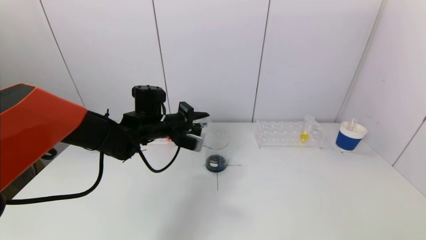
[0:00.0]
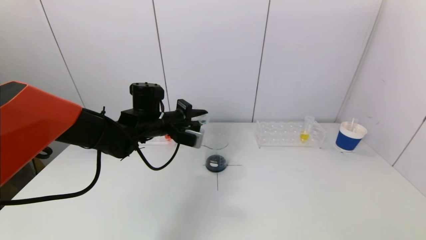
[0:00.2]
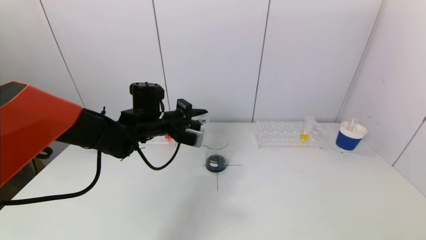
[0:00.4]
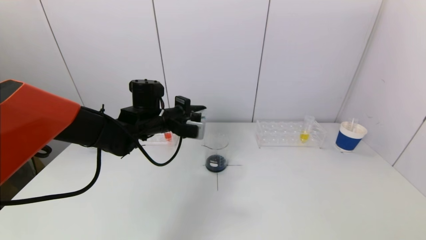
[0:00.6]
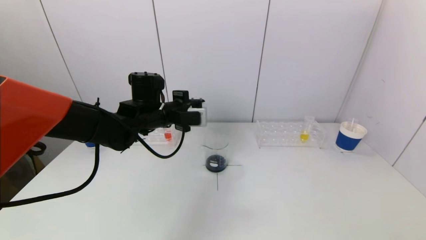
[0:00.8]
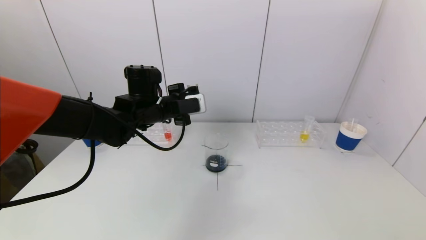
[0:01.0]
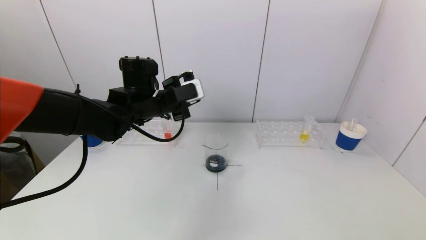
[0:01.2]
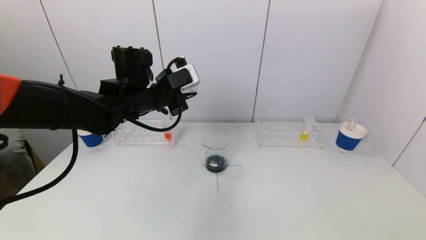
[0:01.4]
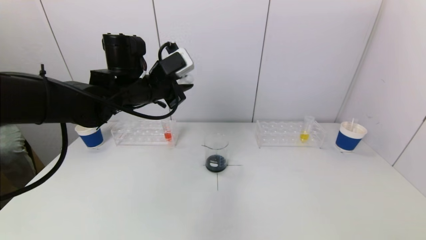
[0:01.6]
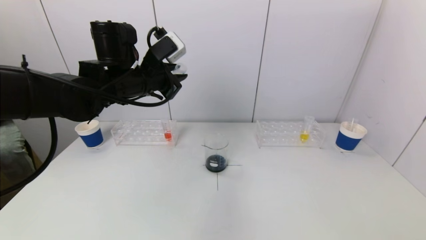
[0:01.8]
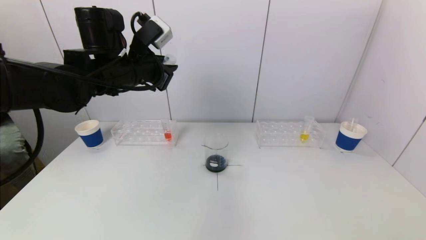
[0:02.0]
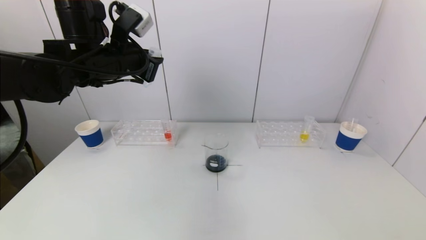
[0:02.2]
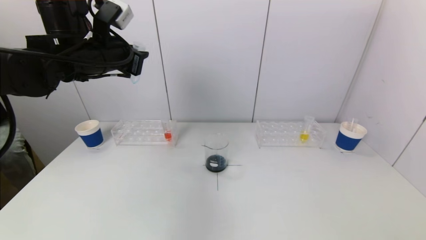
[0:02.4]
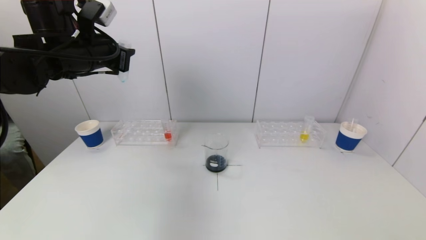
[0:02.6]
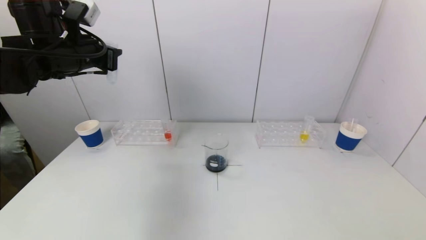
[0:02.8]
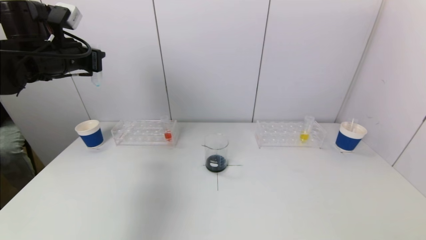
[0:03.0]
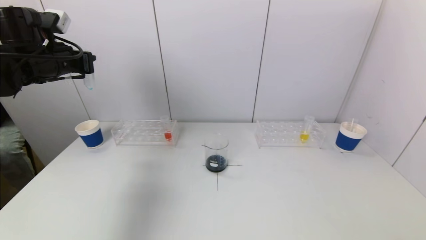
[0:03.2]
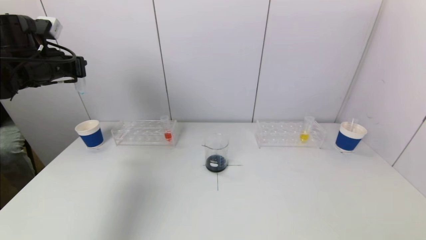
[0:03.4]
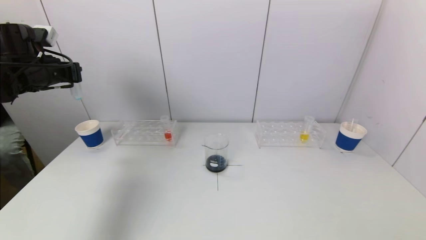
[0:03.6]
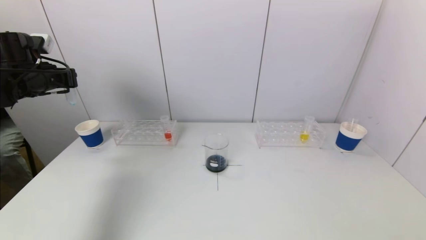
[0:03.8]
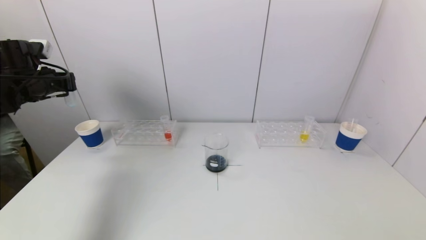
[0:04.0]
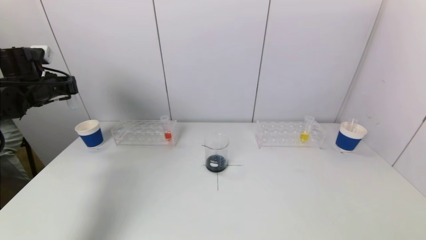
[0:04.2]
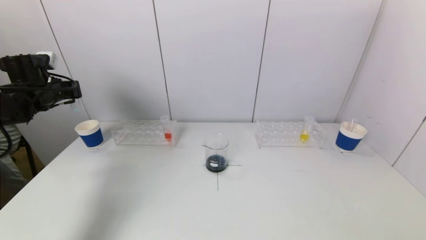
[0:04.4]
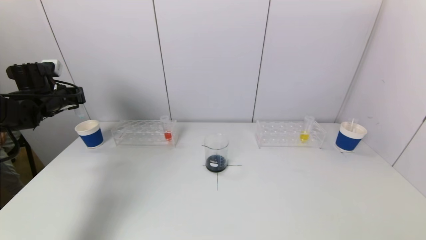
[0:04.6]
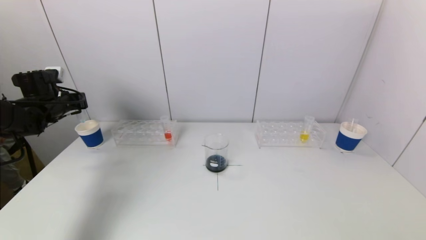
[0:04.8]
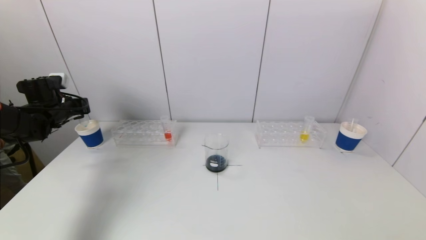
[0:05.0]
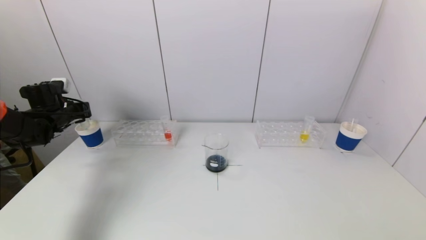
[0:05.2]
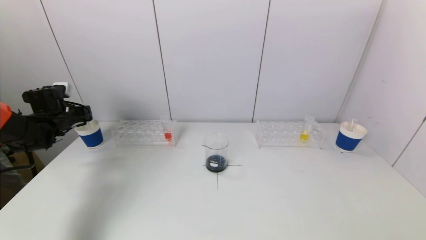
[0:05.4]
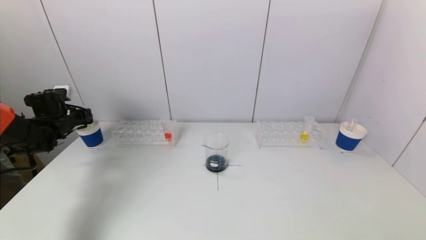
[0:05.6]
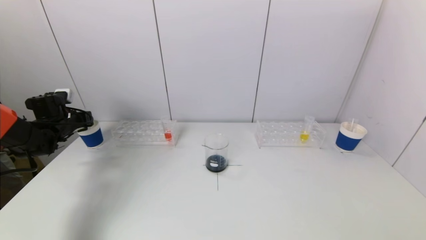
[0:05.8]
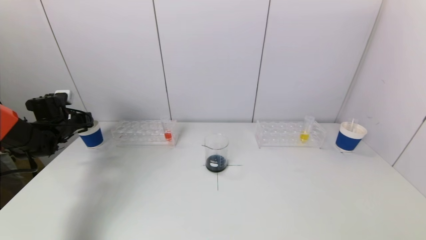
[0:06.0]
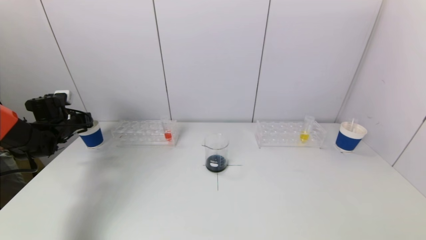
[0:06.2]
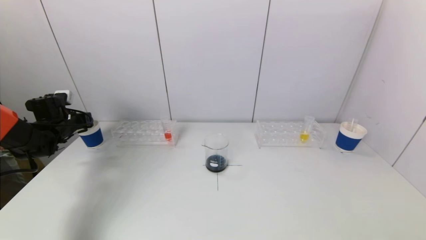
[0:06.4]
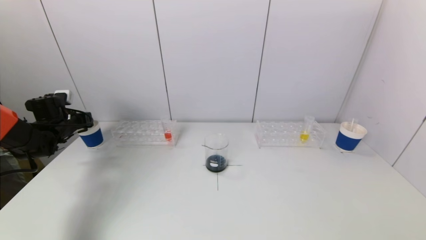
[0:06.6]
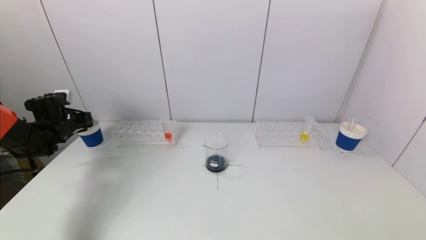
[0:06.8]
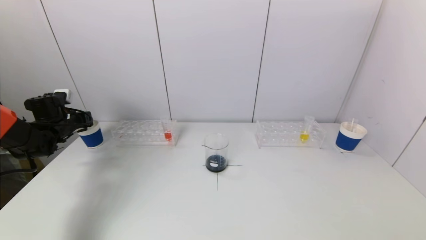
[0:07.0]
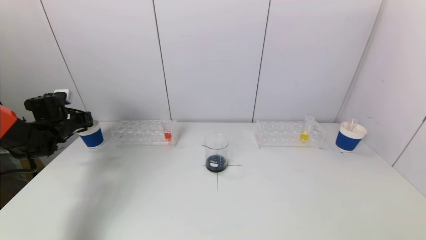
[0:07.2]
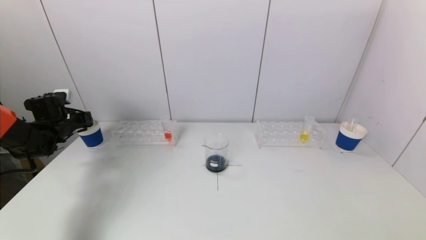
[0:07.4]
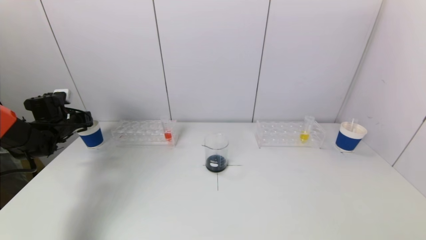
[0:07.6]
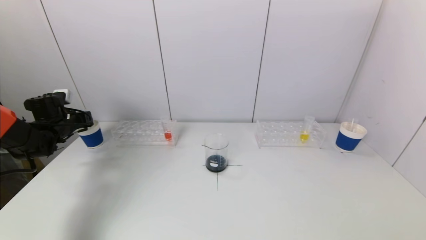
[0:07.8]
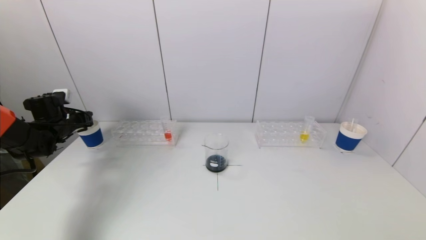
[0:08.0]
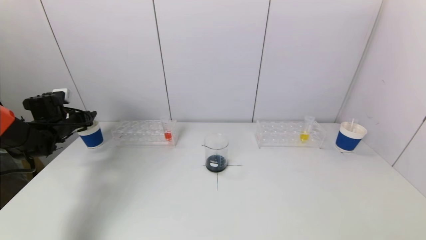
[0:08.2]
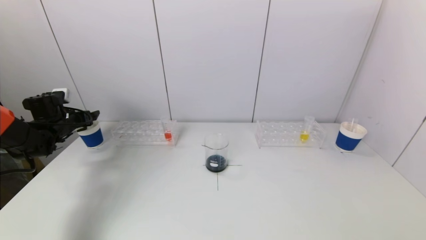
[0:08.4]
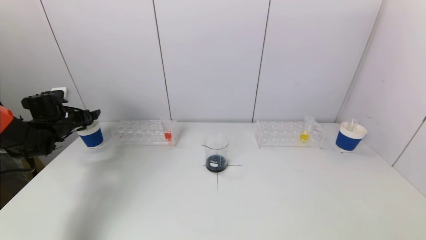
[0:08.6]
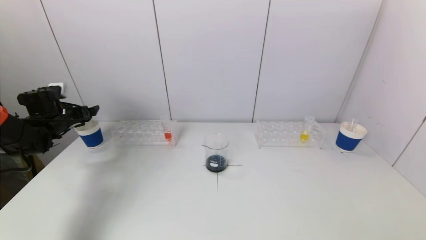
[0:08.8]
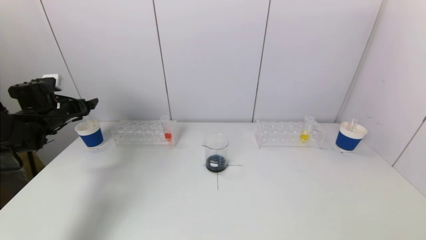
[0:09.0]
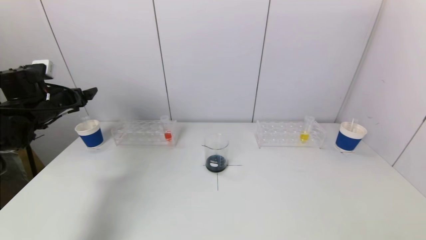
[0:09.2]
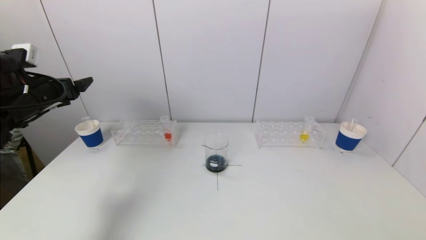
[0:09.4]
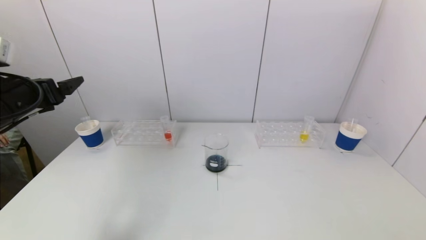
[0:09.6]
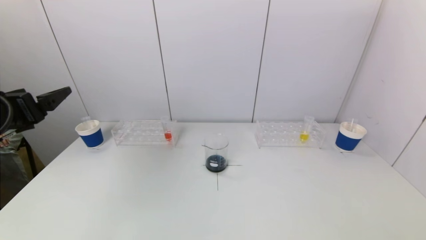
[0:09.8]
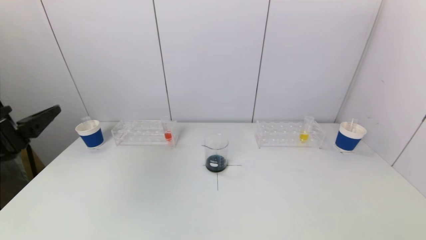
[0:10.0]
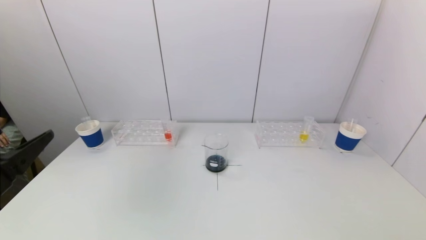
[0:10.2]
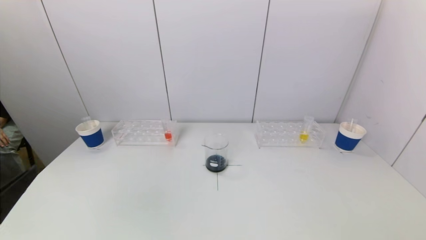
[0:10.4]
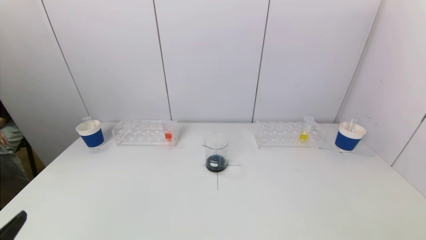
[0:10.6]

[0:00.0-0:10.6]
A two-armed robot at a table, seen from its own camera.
Task of the whole recording: pick up a test tube with pigment on left test tube rack and a test tube with pigment on right test tube rack by grippers and pour them into the beaker.
Step, 0:00.0 to 0:08.6: Place the test tube into the paper cup with the left gripper.
0:00.0 to 0:01.6: The left gripper heads upward, covering approximately 10 cm.
0:01.6 to 0:03.0: The left gripper shifts about 15 cm to the left.
0:03.0 to 0:04.6: The left gripper goes roughly 15 cm downward, to the left and forward.
0:04.6 to 0:06.0: The left gripper heads downward, covering about 10 cm.
0:06.0 to 0:07.6: Both grippers stay put.
0:07.6 to 0:09.0: The left gripper is displaced upward by about 5 cm, and opens up.
0:09.0 to 0:10.6: The left gripper is displaced backward by some 40 cm.

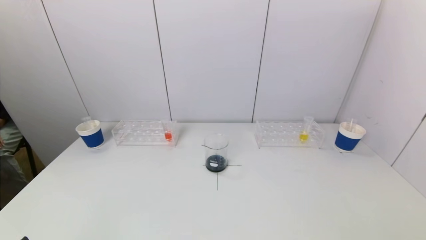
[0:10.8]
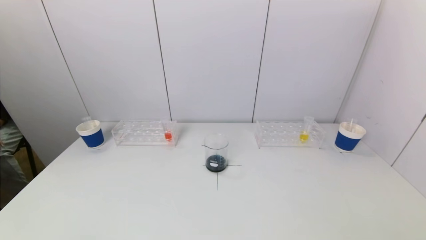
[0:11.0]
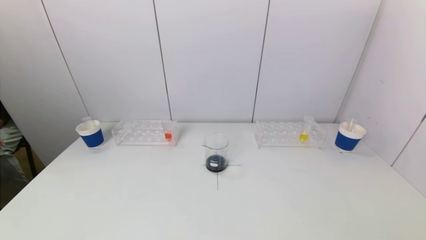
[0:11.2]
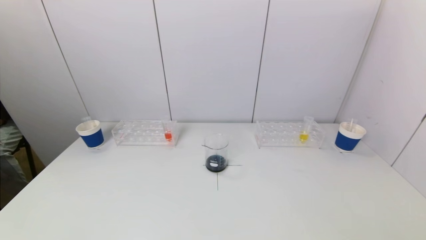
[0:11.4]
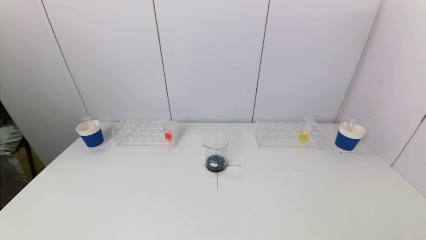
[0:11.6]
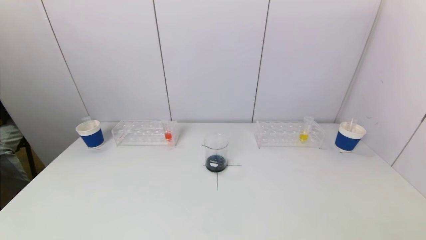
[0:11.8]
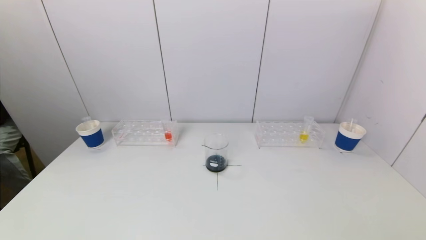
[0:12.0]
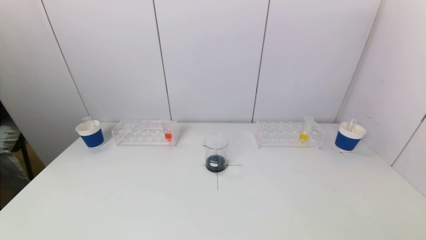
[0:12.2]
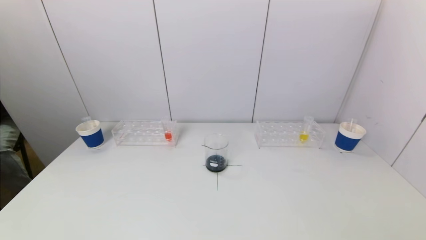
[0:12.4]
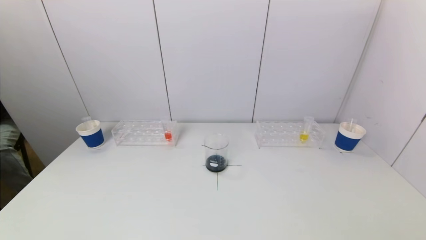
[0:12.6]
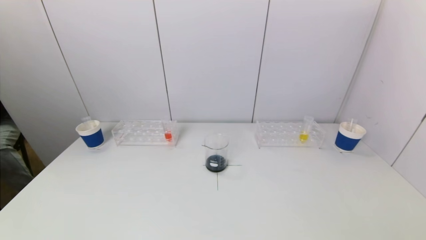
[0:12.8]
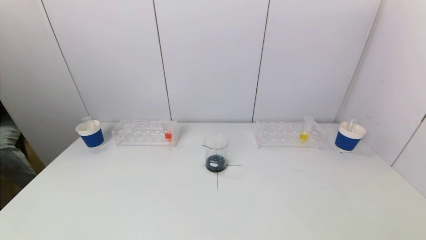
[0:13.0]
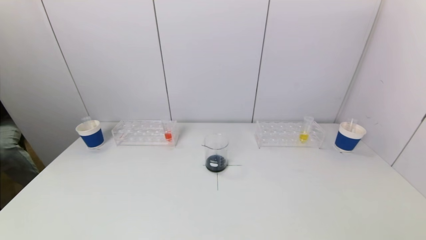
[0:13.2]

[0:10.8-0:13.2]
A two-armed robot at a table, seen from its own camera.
Task of the whole recording: pick up a test tube with pigment on left test tube rack and a test tube with pigment on right test tube rack by grippers and pour them into the beaker.
0:12.0 to 0:13.2: Both grippers stay put.
